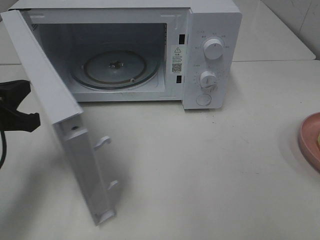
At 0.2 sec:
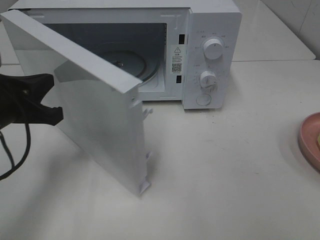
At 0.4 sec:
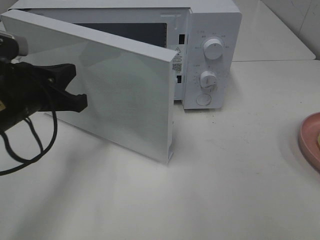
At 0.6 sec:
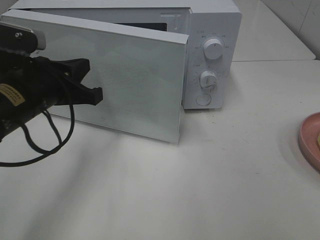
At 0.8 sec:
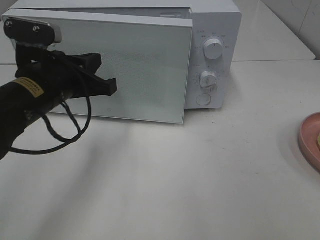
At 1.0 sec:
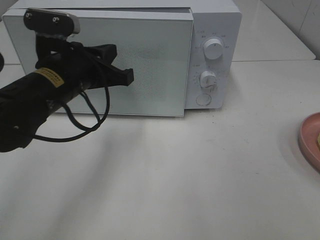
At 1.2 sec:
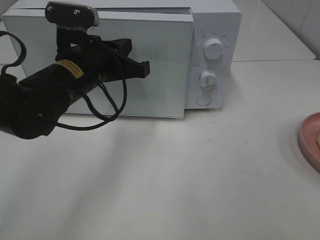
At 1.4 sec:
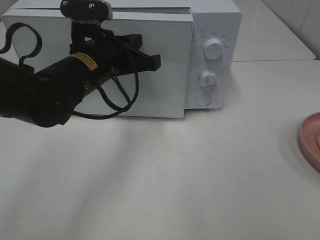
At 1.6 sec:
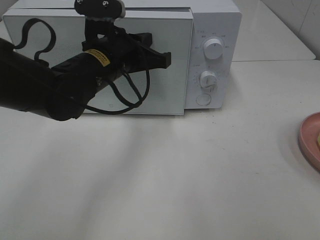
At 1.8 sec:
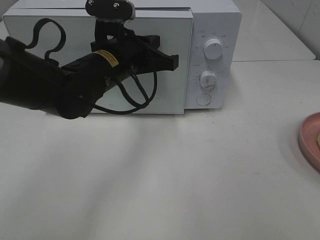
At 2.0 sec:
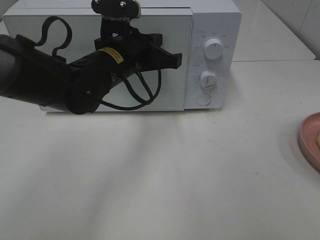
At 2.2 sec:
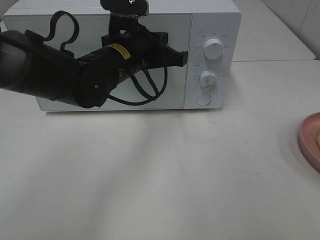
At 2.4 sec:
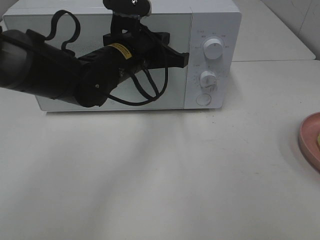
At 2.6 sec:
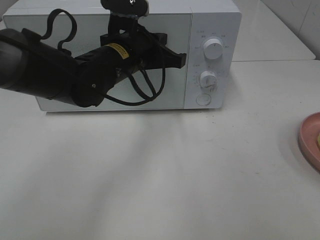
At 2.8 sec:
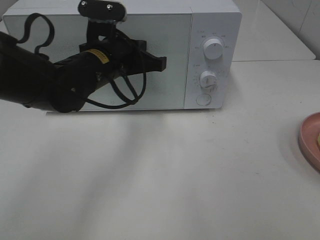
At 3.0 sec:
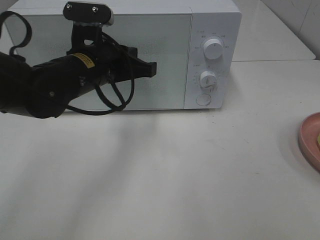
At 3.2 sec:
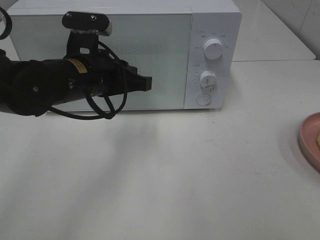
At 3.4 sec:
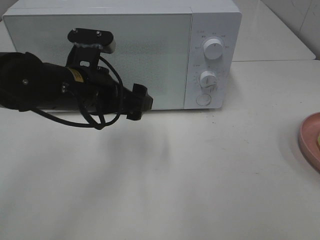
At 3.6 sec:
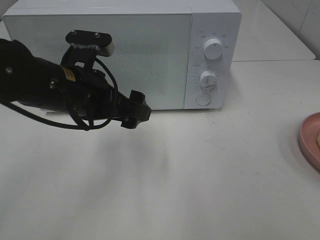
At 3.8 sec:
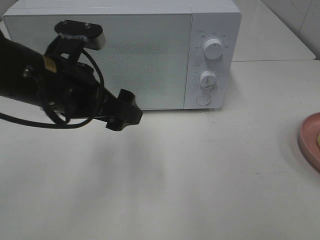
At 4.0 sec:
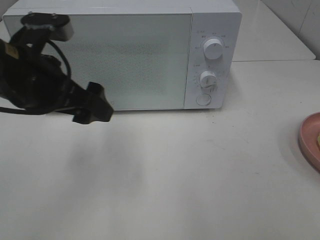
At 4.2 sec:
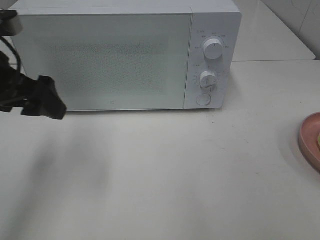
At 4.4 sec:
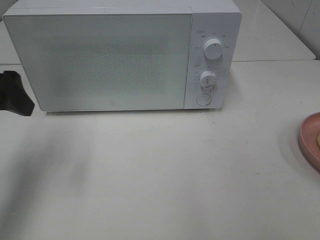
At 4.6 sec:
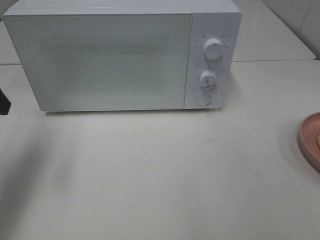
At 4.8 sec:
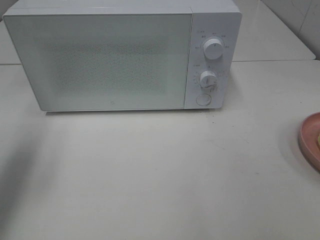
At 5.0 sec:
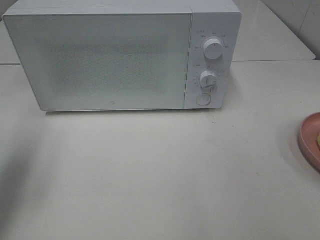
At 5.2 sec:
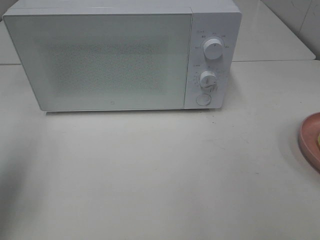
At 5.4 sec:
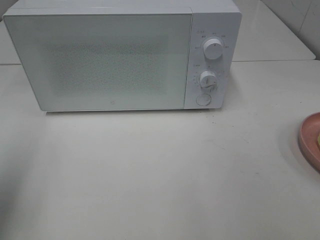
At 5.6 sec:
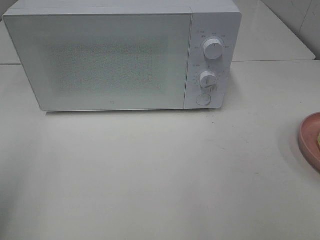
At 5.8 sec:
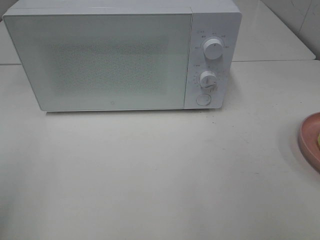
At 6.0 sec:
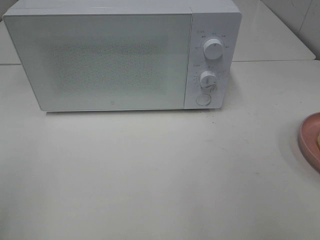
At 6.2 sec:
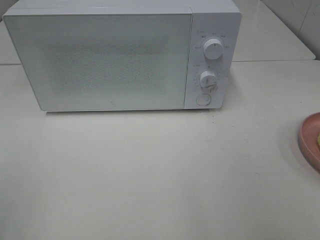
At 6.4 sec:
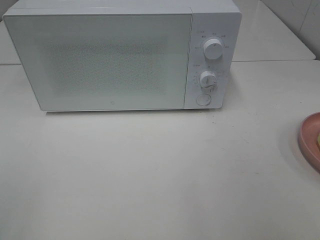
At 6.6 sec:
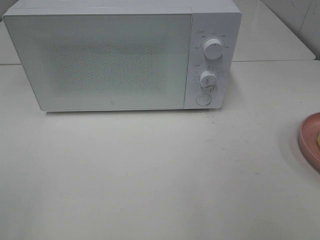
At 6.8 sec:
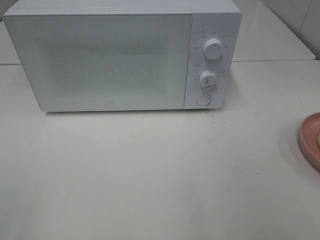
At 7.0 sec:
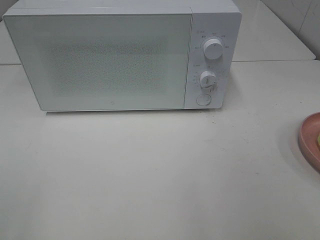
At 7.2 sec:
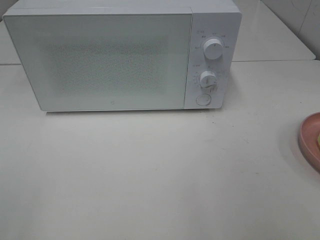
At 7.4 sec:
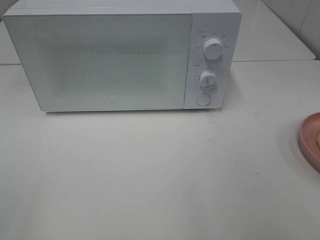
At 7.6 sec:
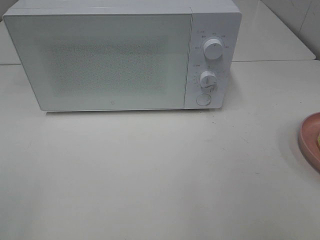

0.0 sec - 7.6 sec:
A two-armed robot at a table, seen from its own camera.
Task of the whole recording: Heat Sandwich.
Step, 0.0 sec - 2.8 sec: Left hand: close the microwave door.
0.0 sec - 1.6 sec: The left gripper heads to the right and forward, covering about 20 cm.
1.6 sec - 3.0 sec: There are only small adjustments of the grippers.
3.0 sec - 4.6 sec: The left gripper goes about 20 cm to the left, and opens up.
4.6 sec - 6.0 sec: The left gripper is displaced backward by some 20 cm.
